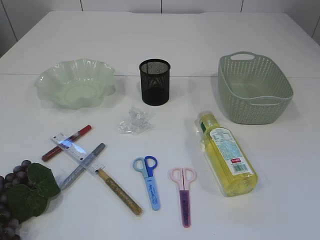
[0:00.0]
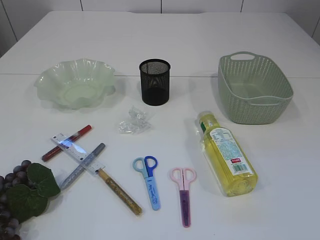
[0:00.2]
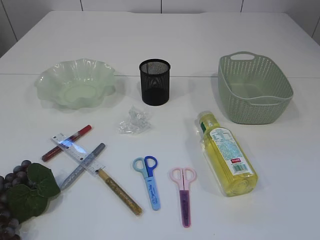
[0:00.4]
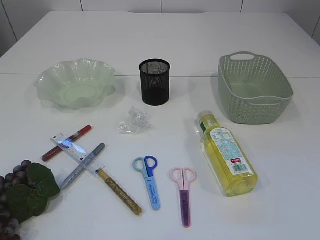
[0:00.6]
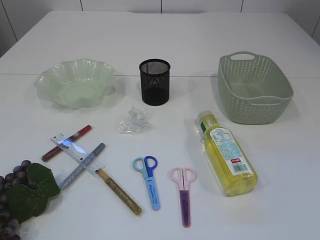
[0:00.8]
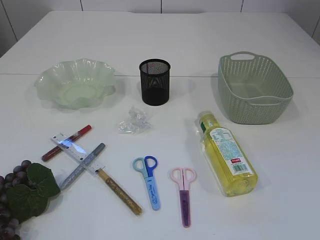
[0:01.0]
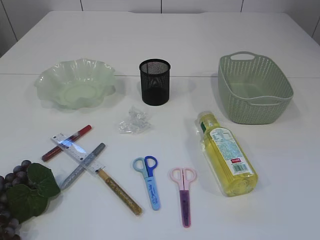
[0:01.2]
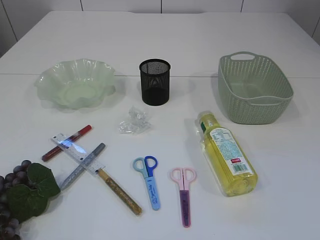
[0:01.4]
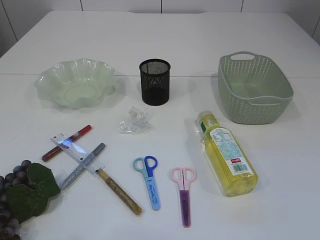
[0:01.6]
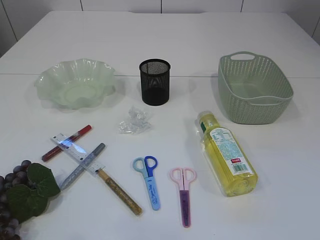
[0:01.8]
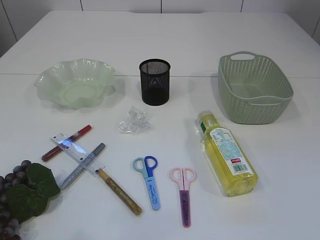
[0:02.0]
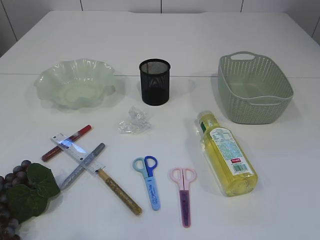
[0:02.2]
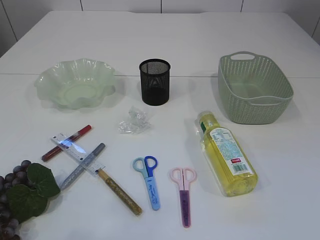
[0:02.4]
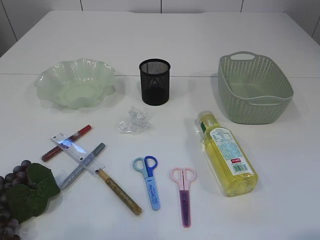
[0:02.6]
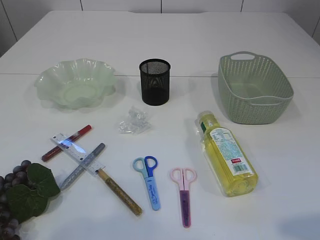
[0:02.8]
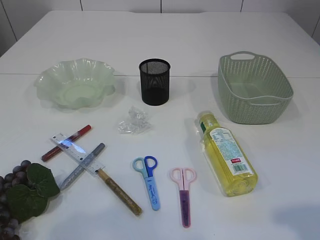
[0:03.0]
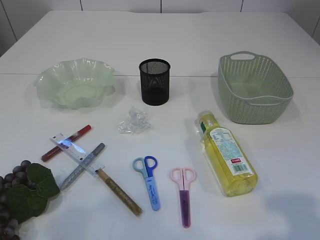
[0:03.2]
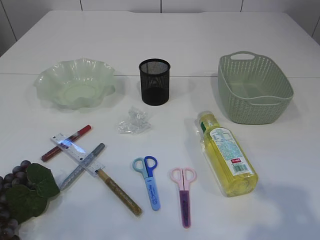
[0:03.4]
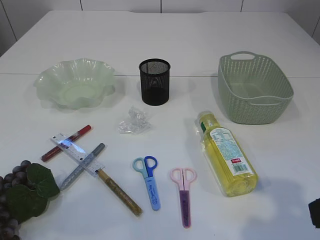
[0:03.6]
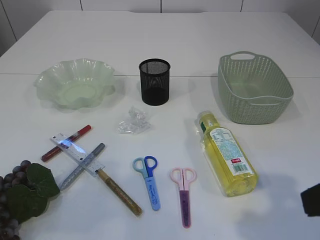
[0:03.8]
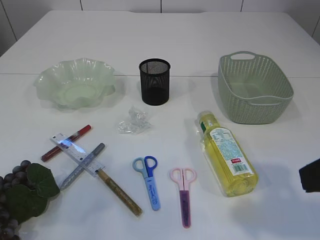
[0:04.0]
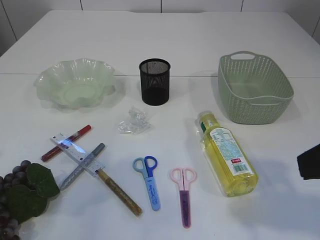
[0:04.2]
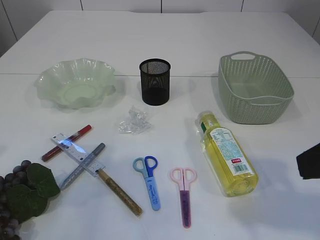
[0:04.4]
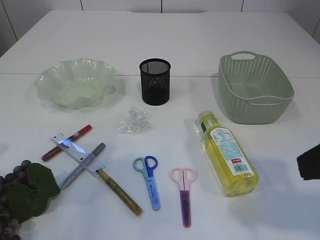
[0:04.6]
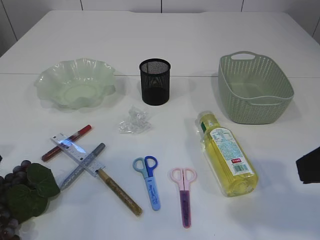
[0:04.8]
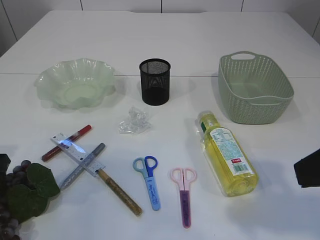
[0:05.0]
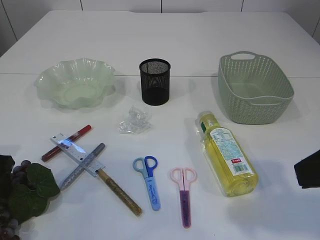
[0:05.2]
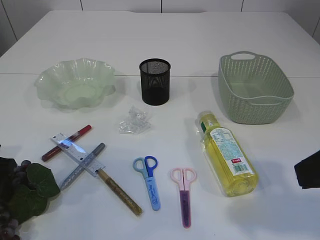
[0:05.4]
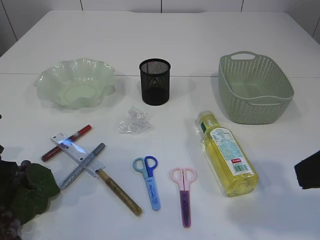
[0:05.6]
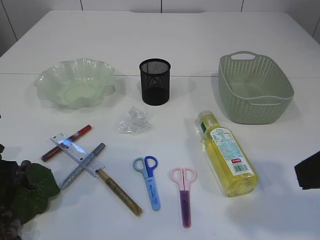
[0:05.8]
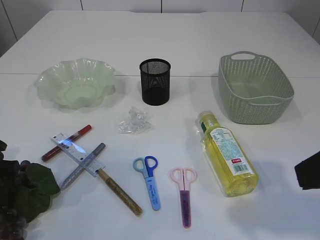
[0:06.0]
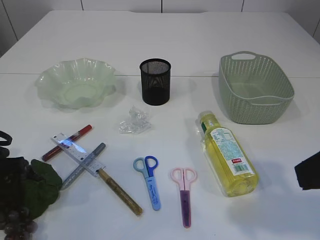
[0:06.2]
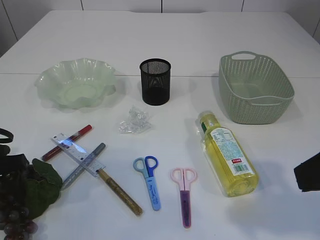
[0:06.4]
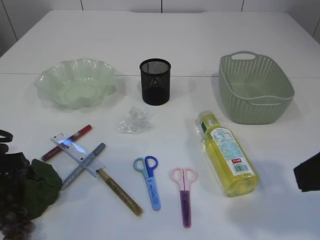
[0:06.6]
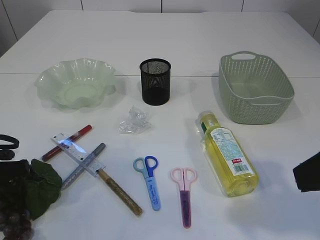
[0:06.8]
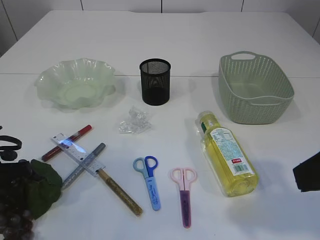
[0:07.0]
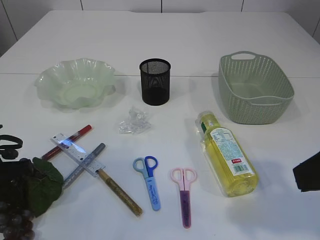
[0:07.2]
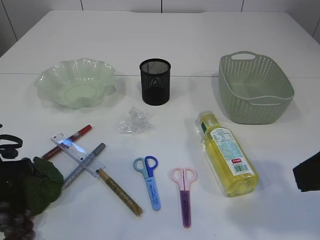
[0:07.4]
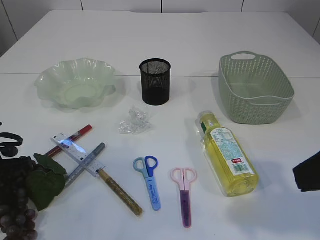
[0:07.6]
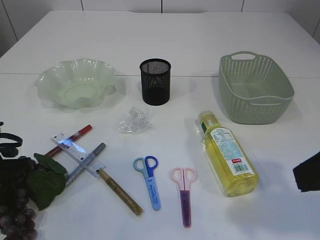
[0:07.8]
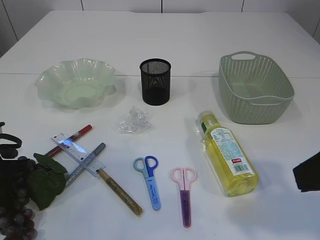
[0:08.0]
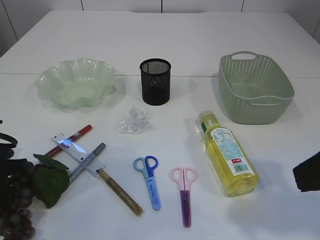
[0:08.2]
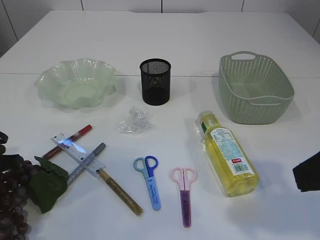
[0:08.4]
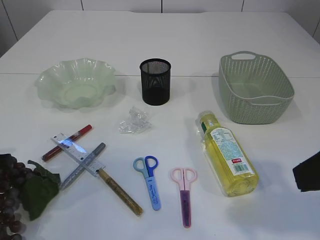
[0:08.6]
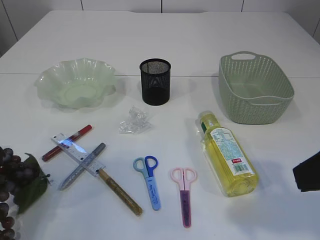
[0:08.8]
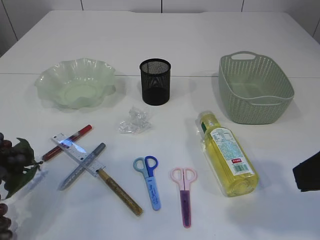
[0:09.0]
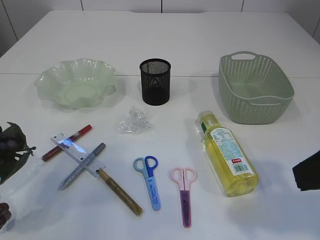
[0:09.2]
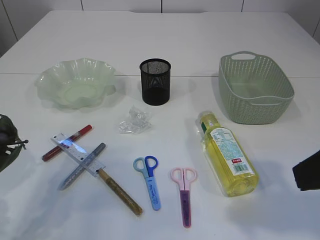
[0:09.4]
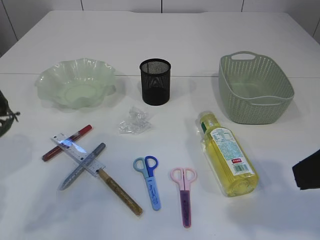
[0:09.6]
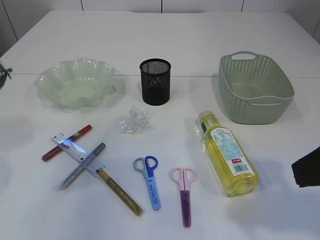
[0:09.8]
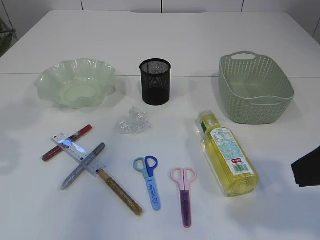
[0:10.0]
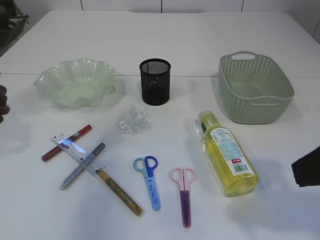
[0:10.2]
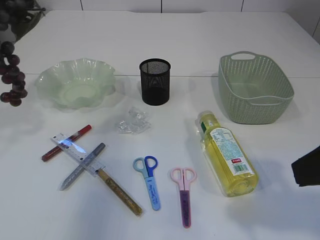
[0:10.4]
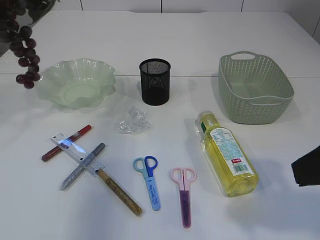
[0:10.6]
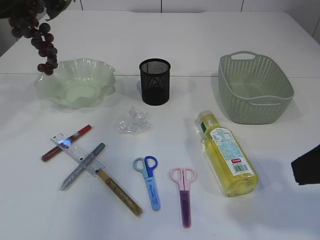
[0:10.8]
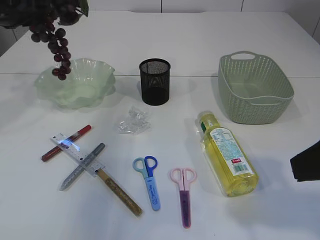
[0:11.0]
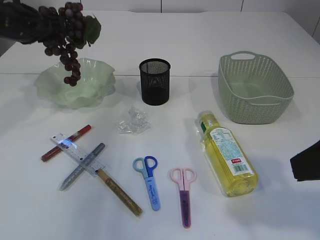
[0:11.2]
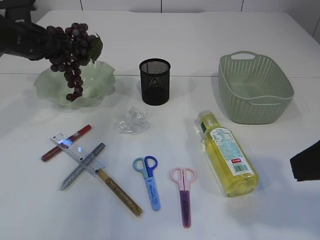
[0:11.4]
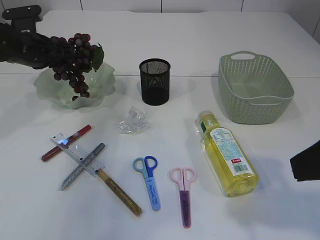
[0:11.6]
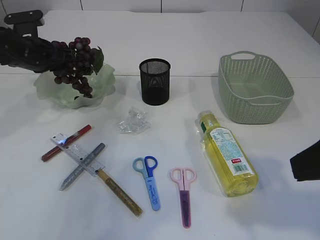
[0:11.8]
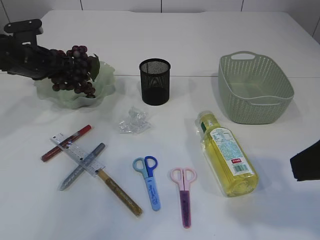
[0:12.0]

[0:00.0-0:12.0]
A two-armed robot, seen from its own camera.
Step, 0:00.0 to 0:10.2: Pick up the grapes.
0:01.6 to 0:03.0: The right gripper is displaced forward by roughly 5 cm.
0:03.0 to 0:04.4: The right gripper heads forward, covering approximately 10 cm.
0:04.4 to 0:06.0: The left gripper moves downward, some 5 cm.
0:06.0 to 0:07.6: The left gripper closes.
0:07.6 to 0:09.0: The left gripper shifts some 10 cm upward.
0:09.0 to 0:10.4: The left gripper shifts some 15 cm upward and forward.
0:10.4 to 0:12.0: The left gripper is displaced downward and forward by roughly 25 cm.

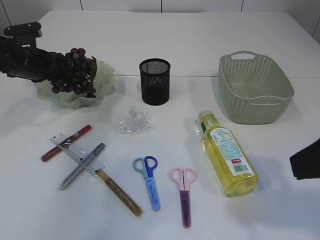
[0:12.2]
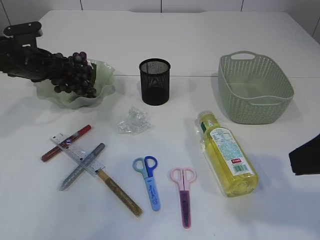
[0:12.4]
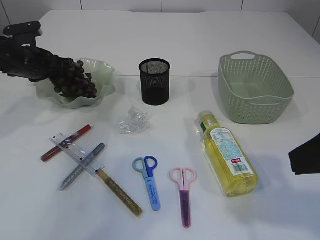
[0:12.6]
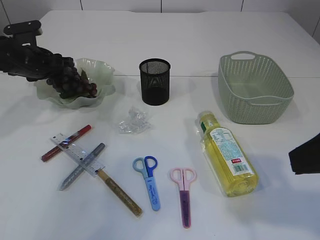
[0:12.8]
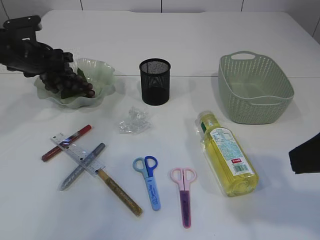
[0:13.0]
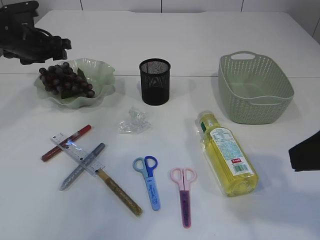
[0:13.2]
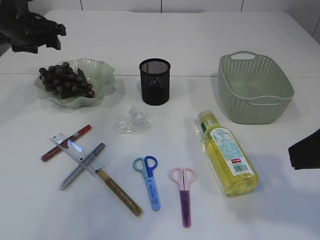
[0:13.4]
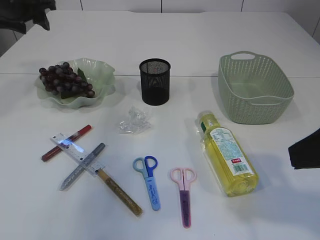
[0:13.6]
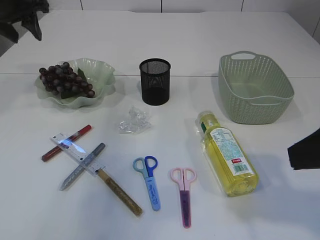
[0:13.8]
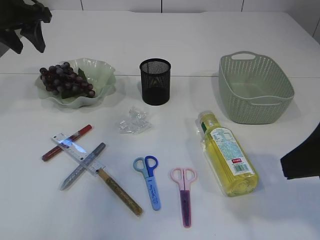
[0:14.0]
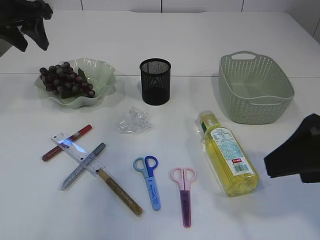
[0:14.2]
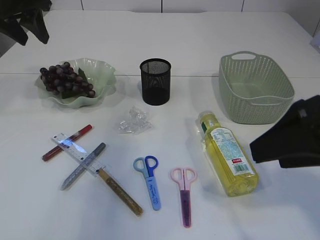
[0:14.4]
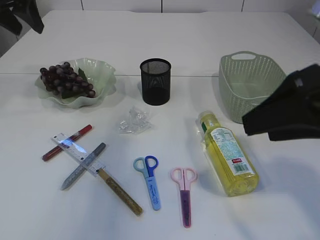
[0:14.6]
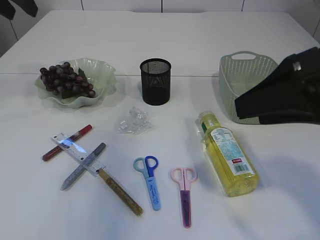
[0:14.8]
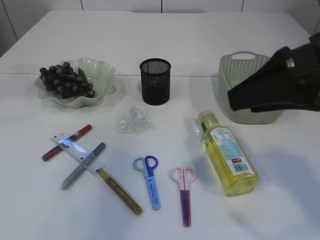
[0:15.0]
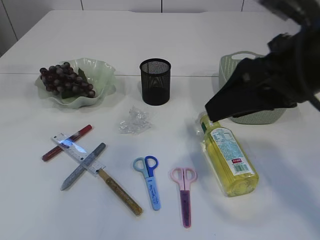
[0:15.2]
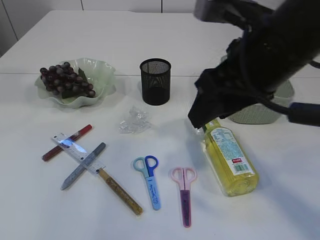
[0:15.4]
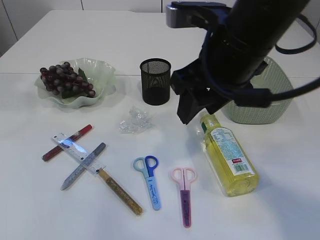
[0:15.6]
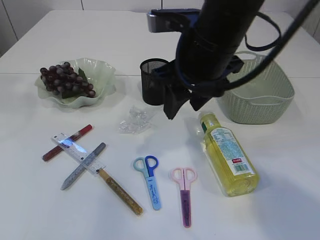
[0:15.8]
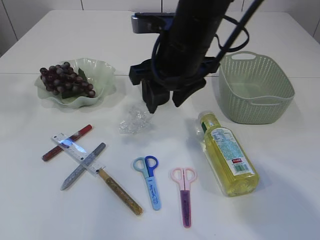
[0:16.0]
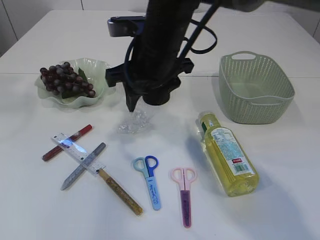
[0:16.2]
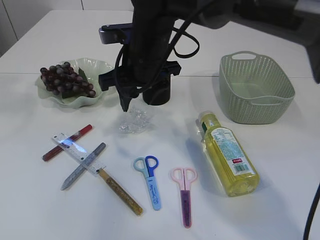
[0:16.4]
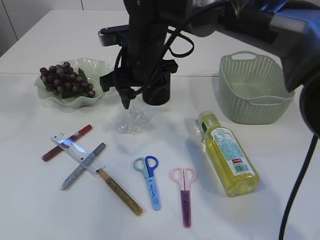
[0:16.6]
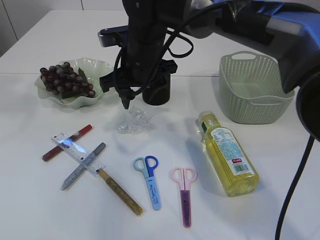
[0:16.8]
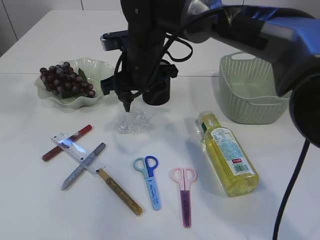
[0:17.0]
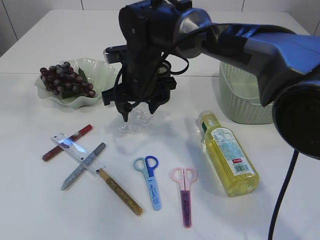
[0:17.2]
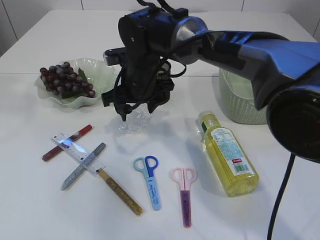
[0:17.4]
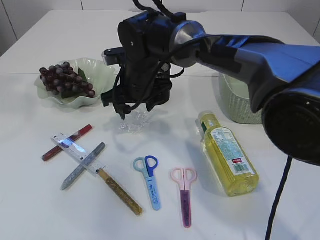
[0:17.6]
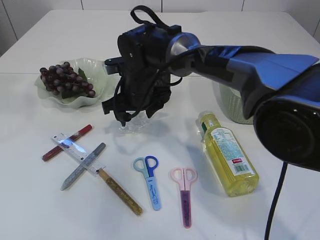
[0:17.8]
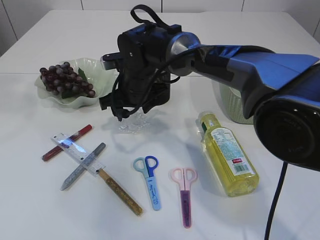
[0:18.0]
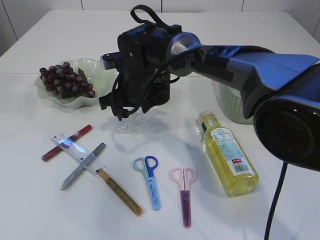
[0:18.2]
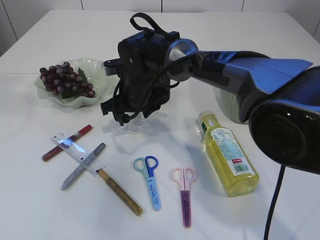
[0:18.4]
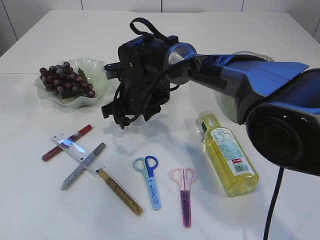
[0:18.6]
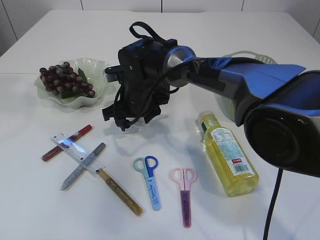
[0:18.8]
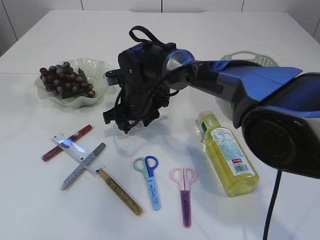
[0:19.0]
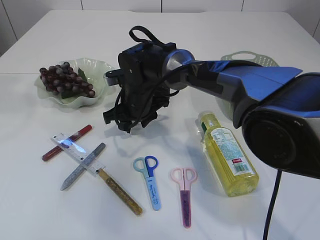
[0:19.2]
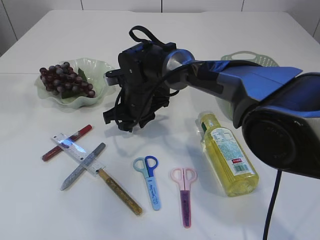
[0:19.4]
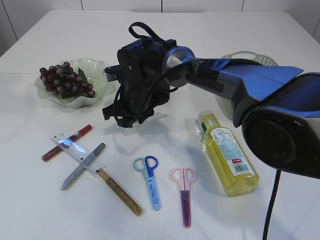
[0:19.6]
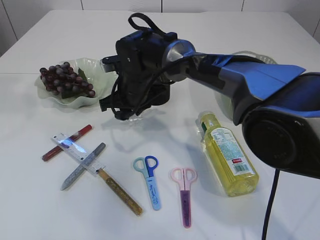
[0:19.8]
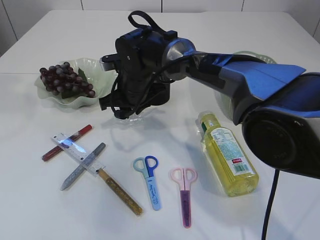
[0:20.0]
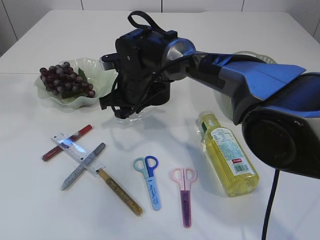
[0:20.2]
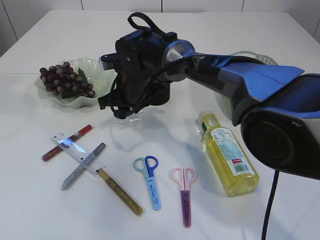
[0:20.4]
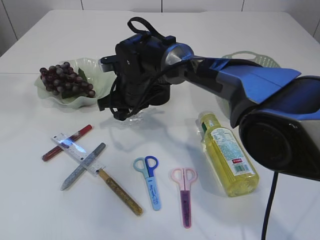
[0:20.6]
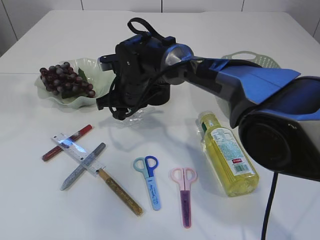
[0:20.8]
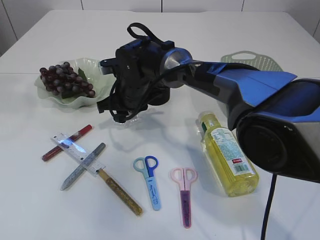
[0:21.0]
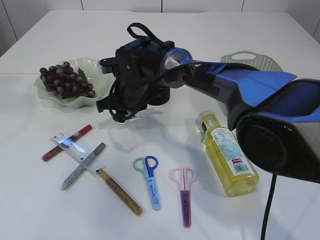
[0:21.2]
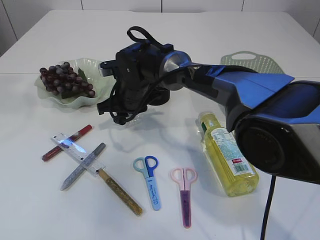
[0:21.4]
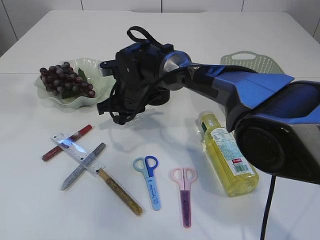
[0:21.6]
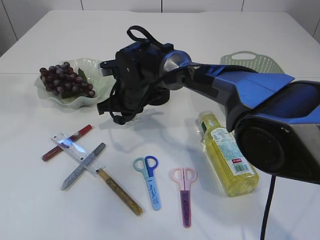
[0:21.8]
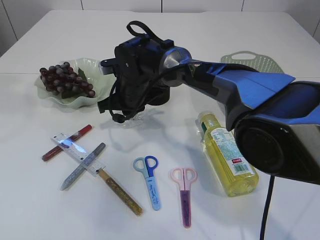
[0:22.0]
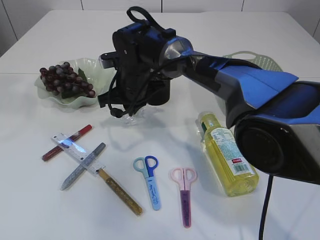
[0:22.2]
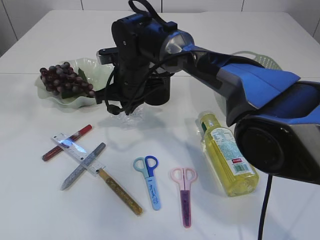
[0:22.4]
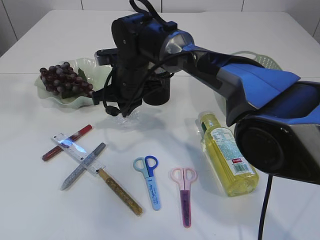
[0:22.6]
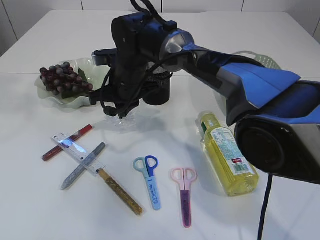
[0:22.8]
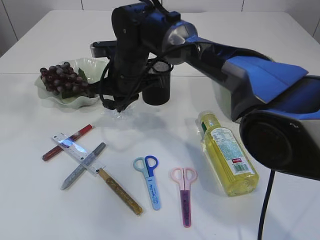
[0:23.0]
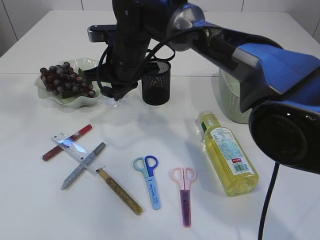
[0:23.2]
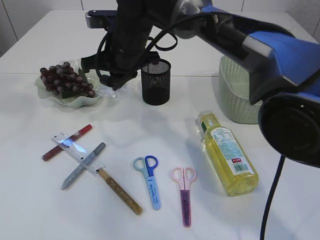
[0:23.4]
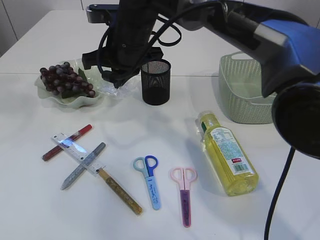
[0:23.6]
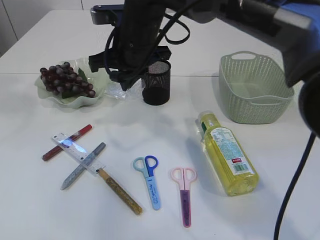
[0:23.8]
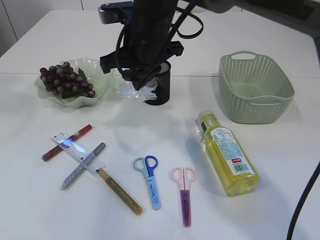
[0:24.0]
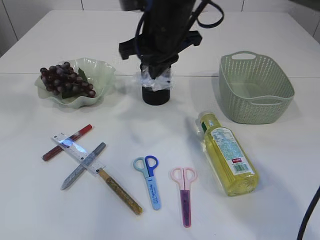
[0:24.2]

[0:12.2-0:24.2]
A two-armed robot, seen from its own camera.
Step, 0:13.6 to 0:23.2: Pick up the plastic.
0:12.2 to 0:13.8: The left gripper is displaced upward by approximately 15 cm, and opens up.
0:13.8 to 0:15.2: The right gripper moves forward and to the left, approximately 10 cm. The left gripper shifts roughly 15 cm upward and backward.
0:15.2 to 0:16.6: The right gripper is displaced to the left, forward and downward by roughly 25 cm, while the left gripper shifts about 5 cm backward.
0:16.6 to 0:18.2: The right gripper heads downward, covering some 5 cm.
0:18.2 to 0:19.8: The right gripper closes.
0:19.8 to 0:21.2: There are only small adjustments of the grippers.
0:21.2 to 0:22.6: The right gripper closes its fingers.
0:22.6 to 0:24.2: The right gripper goes about 15 cm upward and to the right.
